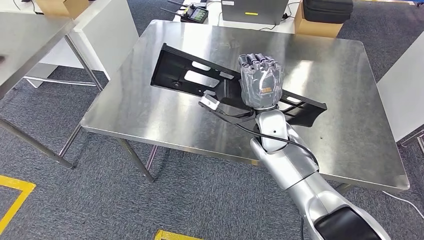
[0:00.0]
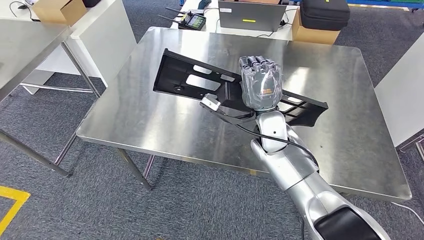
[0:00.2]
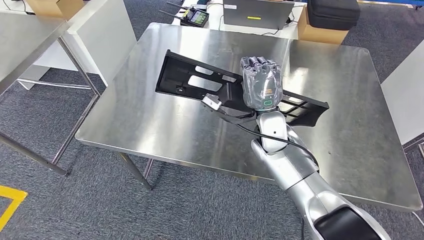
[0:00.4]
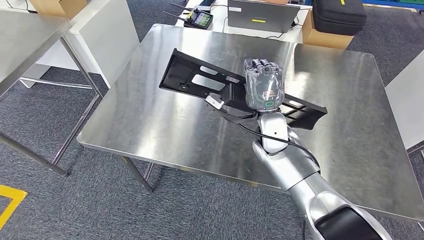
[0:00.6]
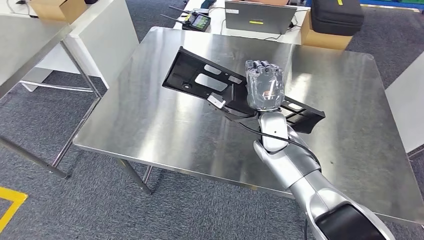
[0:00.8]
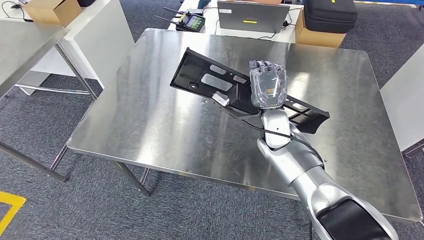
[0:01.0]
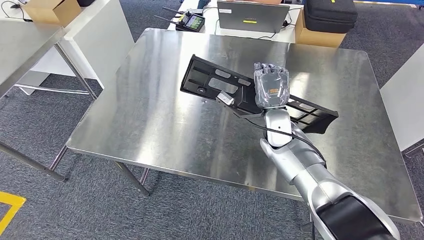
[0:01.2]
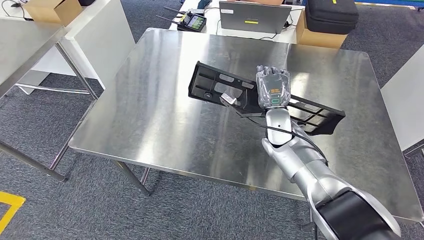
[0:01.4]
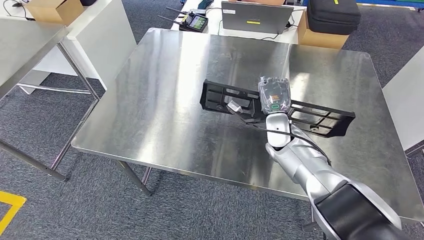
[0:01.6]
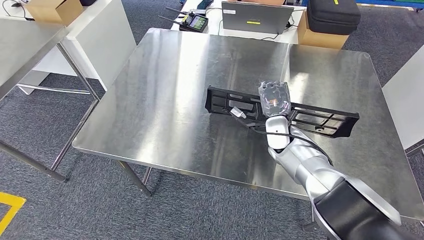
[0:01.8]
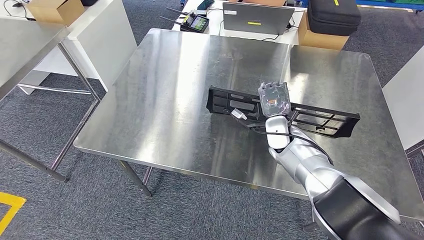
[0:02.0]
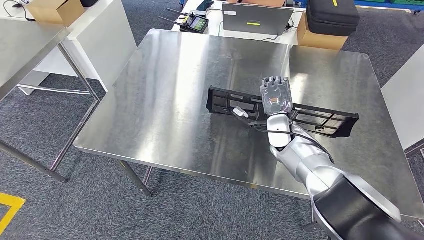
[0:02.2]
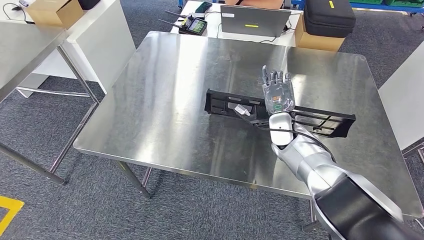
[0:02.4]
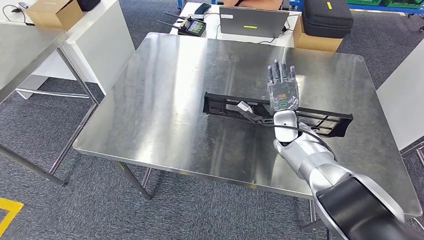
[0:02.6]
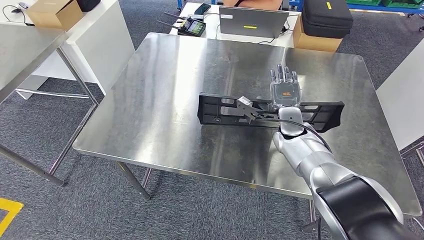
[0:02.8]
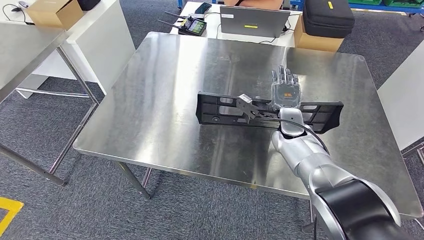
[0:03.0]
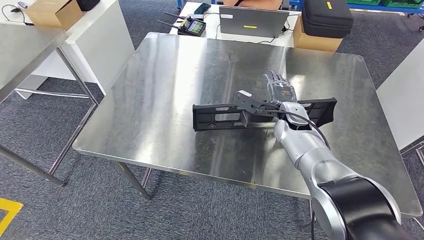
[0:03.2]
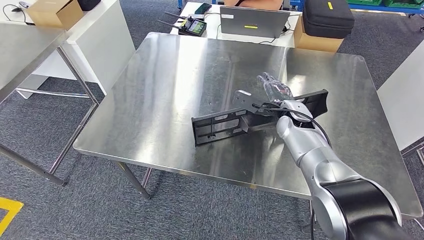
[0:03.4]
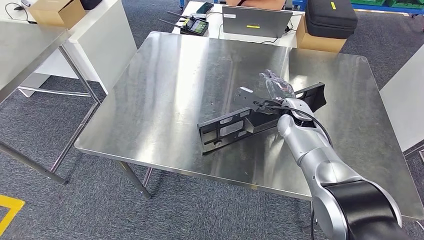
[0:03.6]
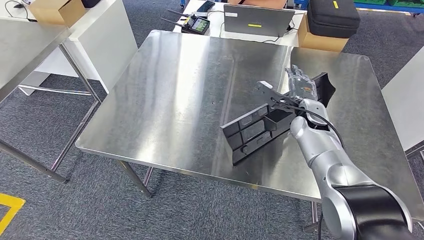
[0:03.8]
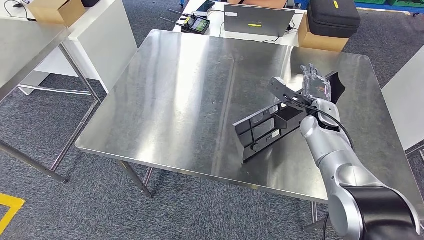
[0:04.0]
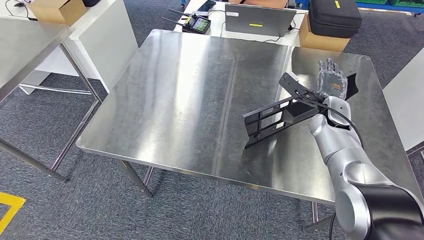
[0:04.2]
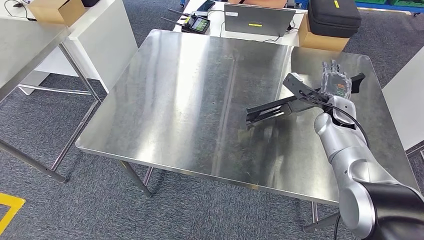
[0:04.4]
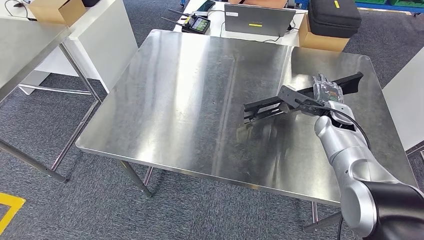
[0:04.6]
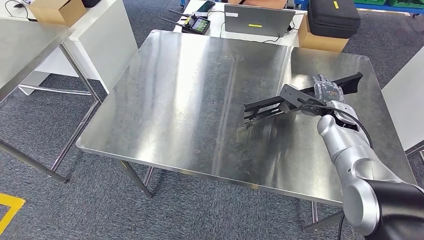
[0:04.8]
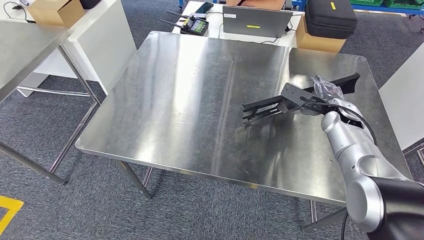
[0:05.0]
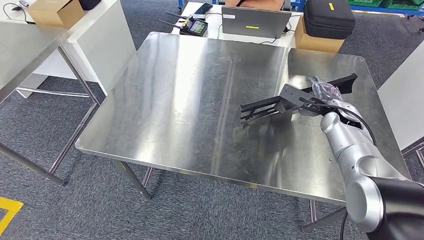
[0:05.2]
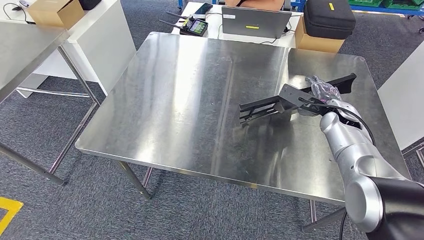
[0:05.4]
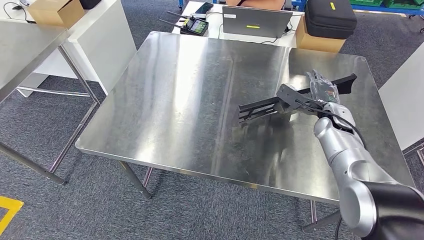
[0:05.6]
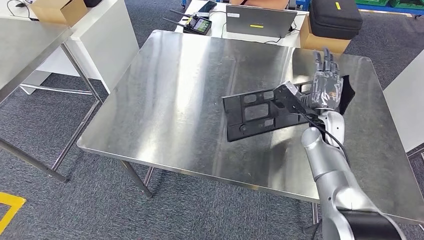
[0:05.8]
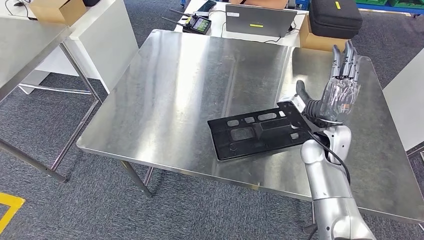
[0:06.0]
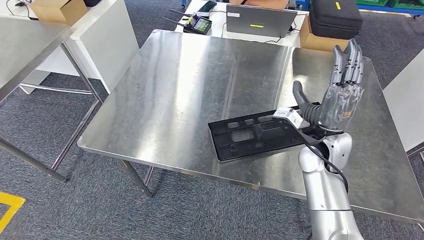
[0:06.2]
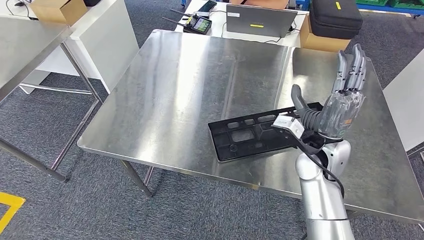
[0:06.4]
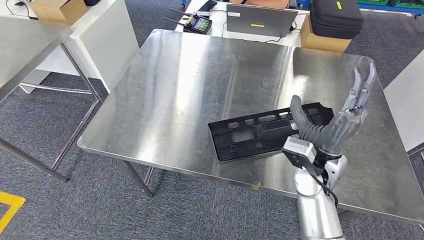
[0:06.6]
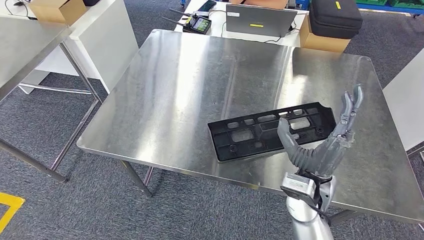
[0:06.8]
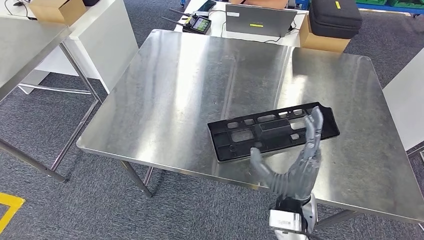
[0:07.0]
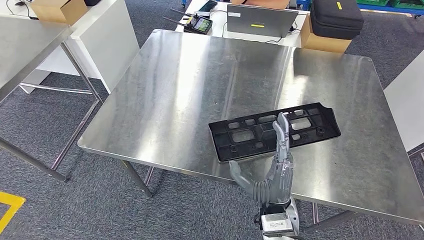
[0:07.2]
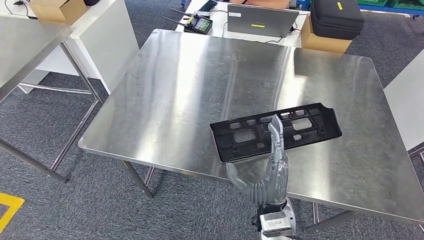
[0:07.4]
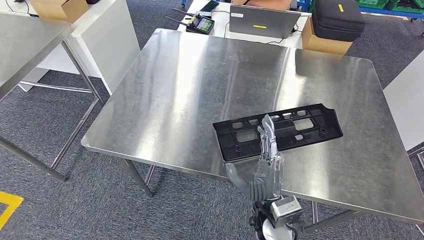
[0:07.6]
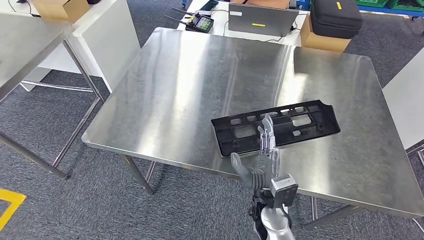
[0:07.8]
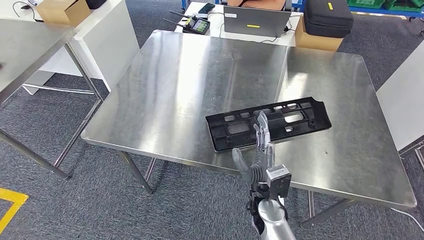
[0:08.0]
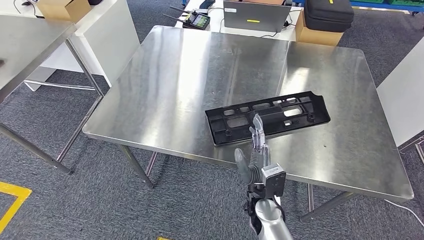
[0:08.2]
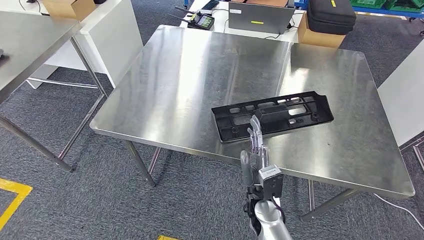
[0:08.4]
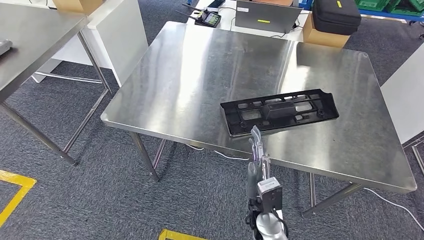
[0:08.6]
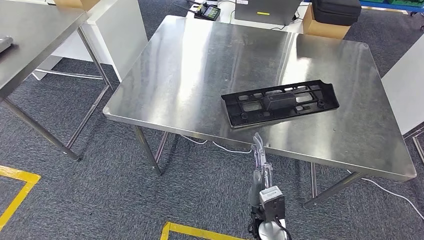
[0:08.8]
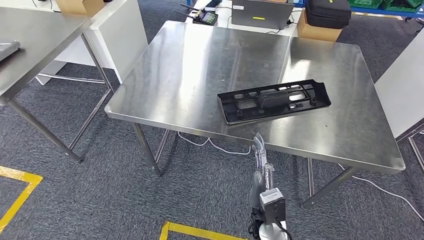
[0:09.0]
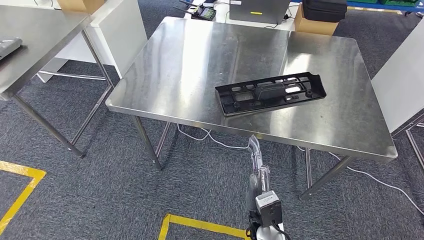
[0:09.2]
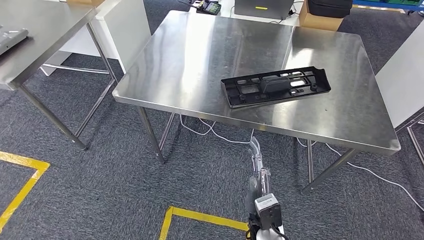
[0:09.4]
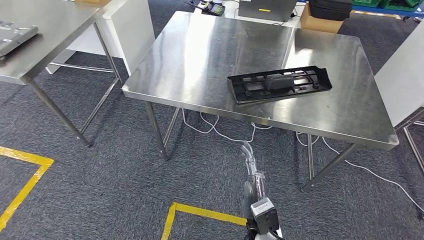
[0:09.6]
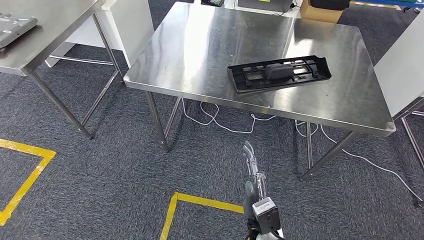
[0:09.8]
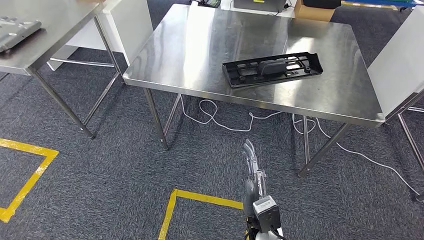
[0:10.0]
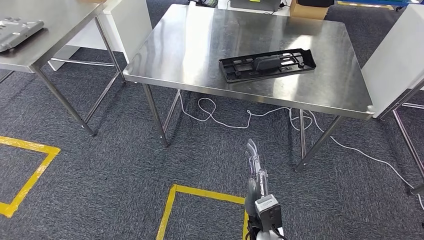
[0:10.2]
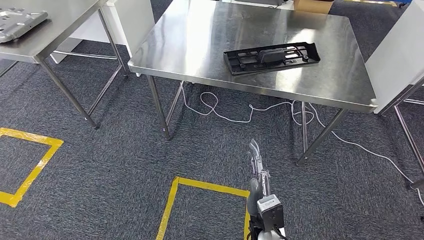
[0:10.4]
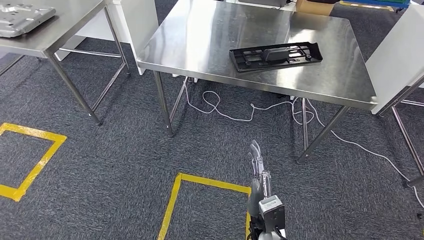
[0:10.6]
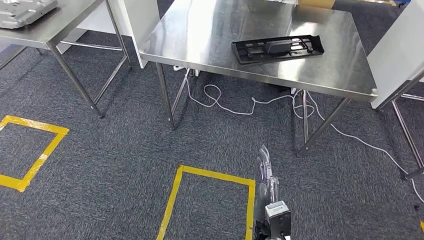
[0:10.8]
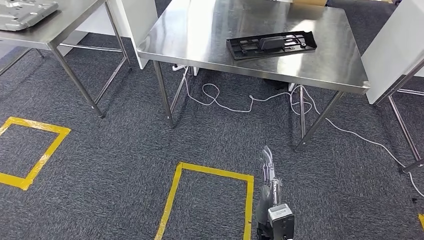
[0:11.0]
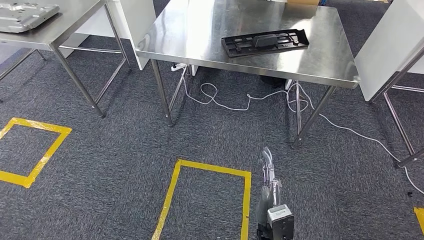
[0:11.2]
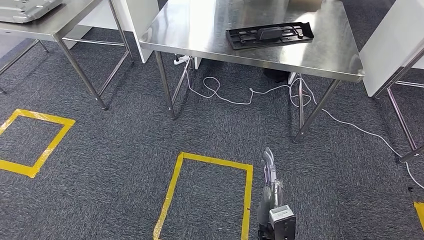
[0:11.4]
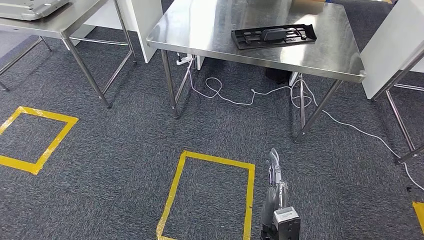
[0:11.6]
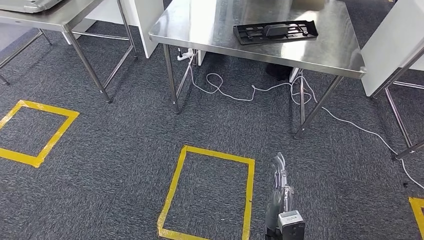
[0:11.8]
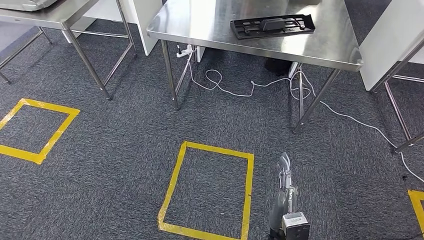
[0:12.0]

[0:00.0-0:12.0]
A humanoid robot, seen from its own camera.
Step, 0:00.0 to 0:09.6: Insert the large material into the corresponding slot on the workbench.
0:04.4 to 0:06.0: The right hand moves backward and to the left, approximately 10 cm.
0:06.0 to 0:07.6: The right hand goes roughly 25 cm to the left, backward and downward.

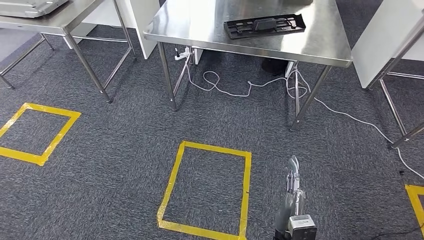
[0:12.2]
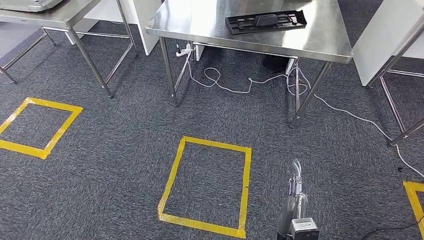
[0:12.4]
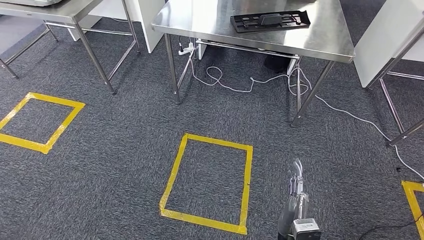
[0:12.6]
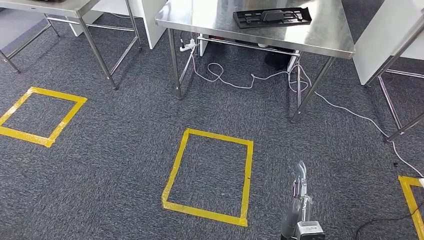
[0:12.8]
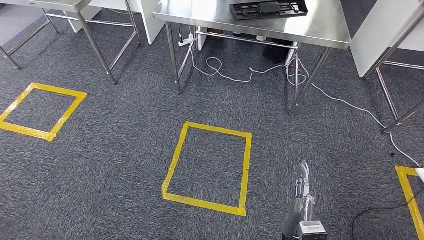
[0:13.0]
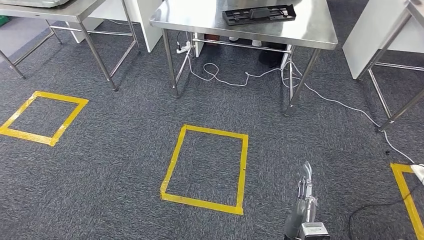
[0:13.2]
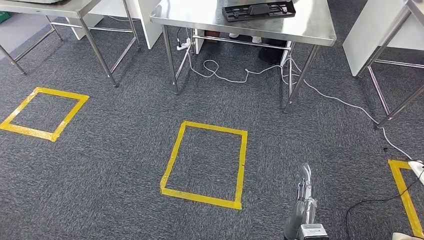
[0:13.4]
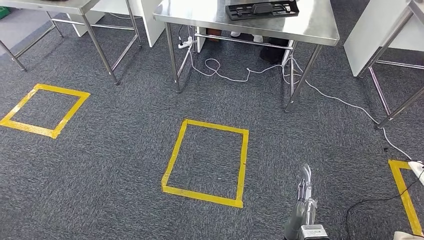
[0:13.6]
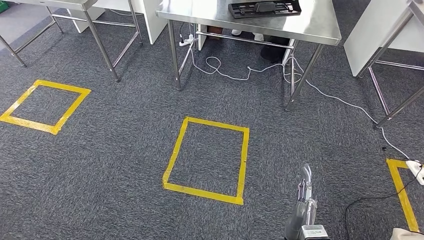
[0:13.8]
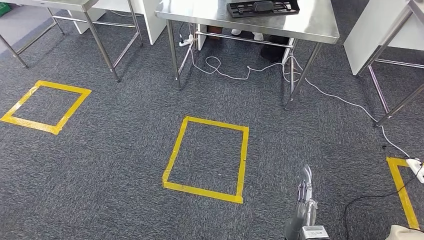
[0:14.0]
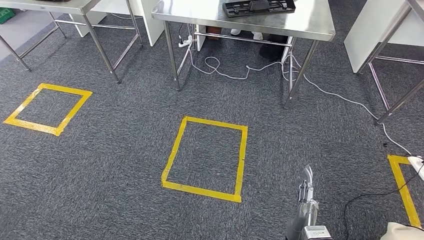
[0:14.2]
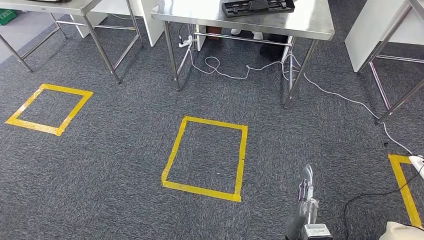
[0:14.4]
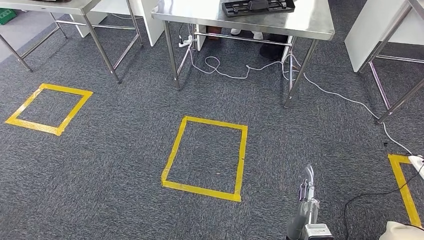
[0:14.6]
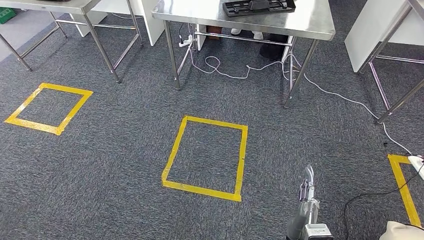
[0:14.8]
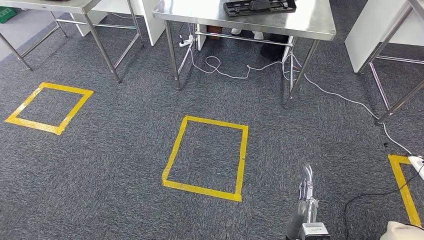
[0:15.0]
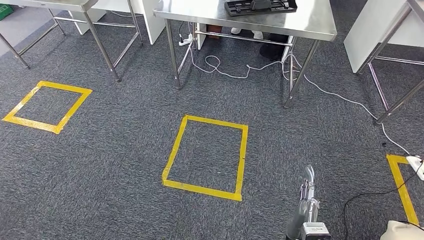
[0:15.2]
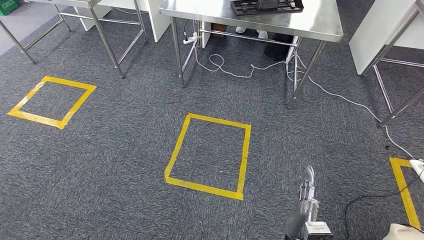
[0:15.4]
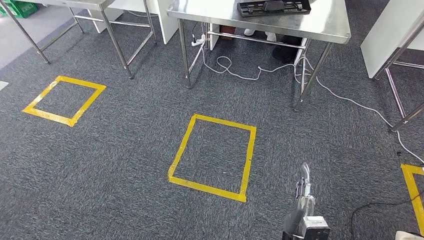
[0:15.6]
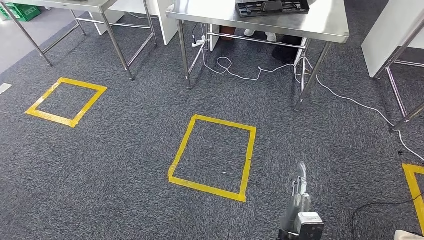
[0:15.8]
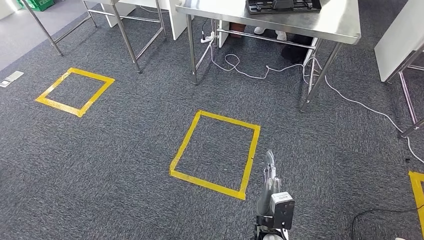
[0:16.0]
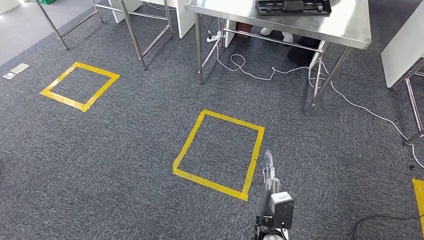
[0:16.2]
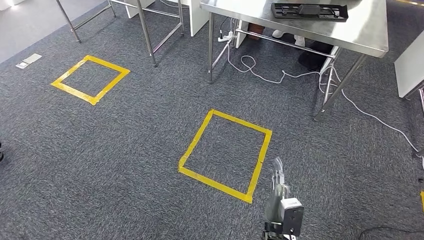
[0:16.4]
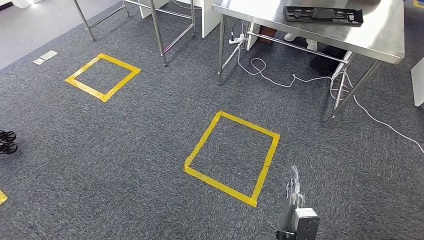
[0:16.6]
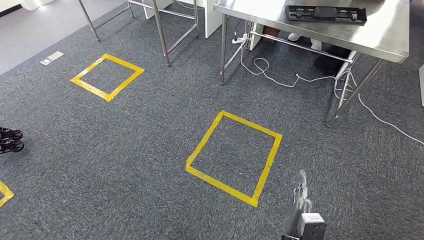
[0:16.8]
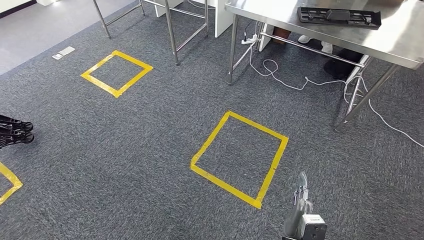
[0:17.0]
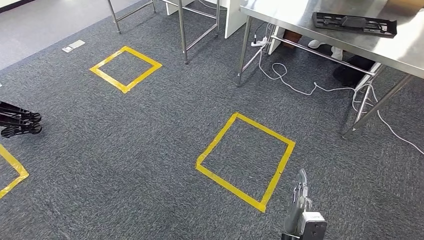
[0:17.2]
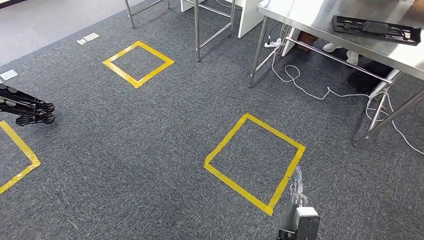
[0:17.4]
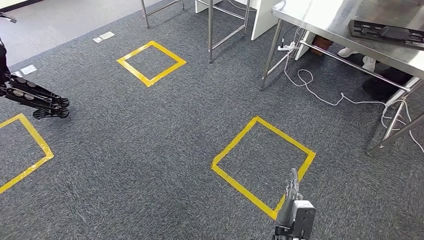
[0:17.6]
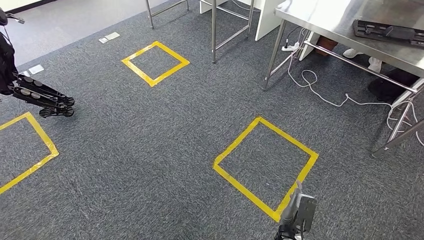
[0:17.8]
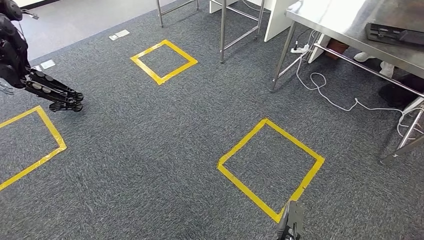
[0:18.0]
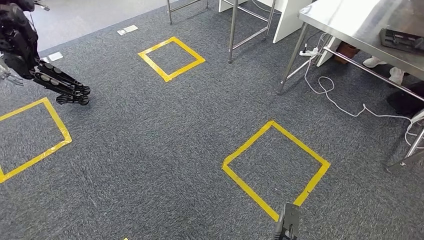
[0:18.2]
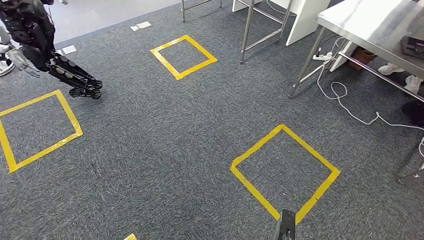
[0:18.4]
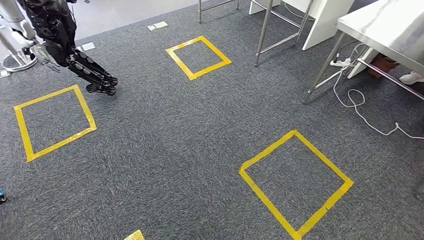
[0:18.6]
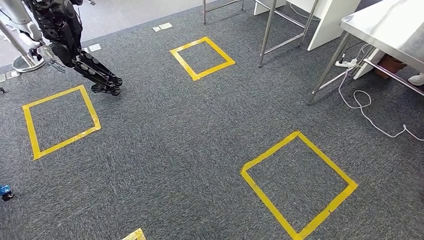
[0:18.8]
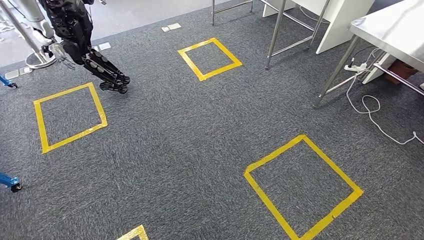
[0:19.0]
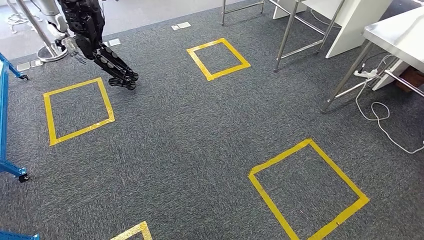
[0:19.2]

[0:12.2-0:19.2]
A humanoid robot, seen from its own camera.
0:13.6 to 0:15.0: Both hands stay about where they are.
